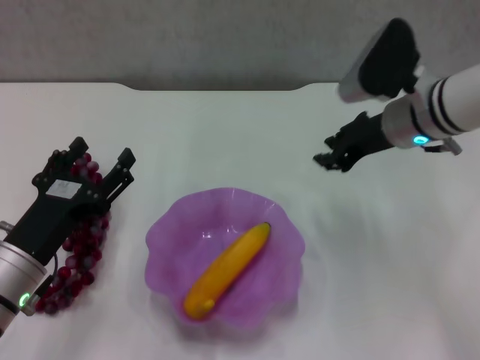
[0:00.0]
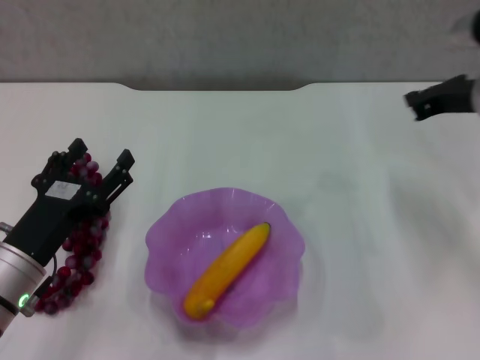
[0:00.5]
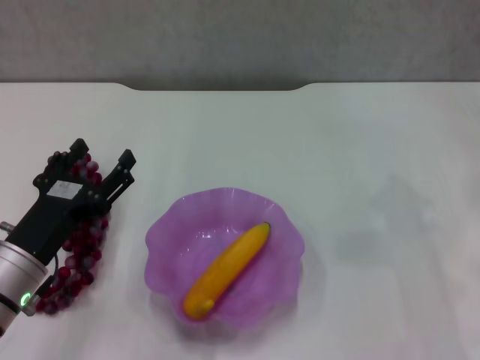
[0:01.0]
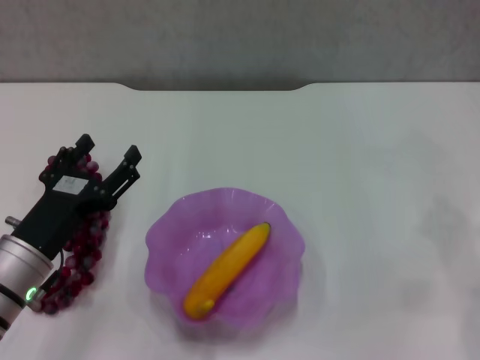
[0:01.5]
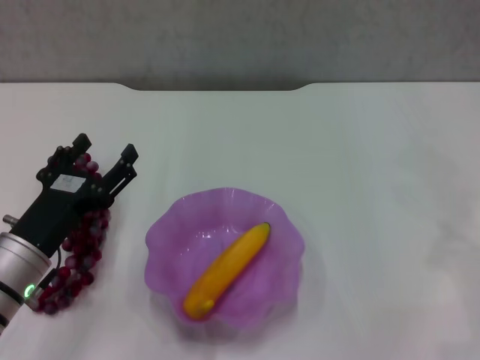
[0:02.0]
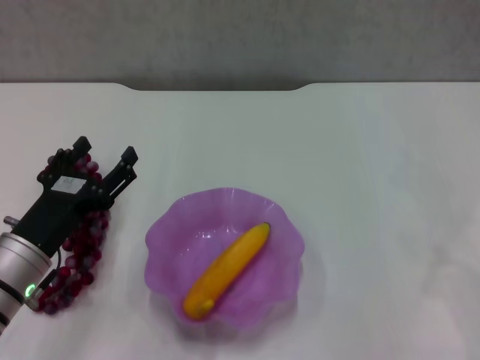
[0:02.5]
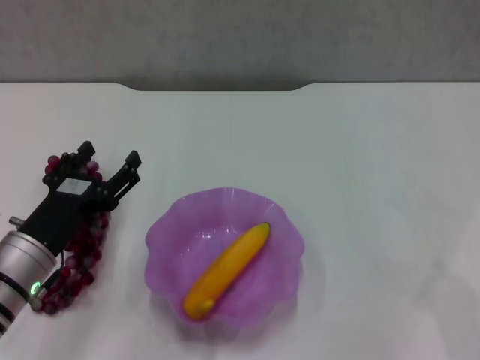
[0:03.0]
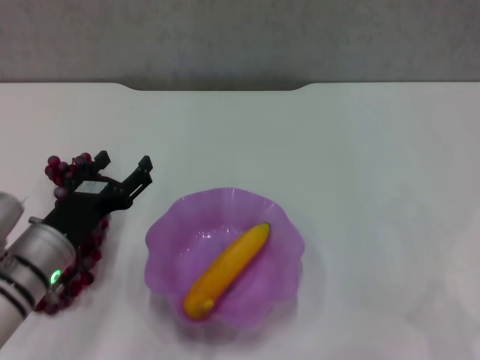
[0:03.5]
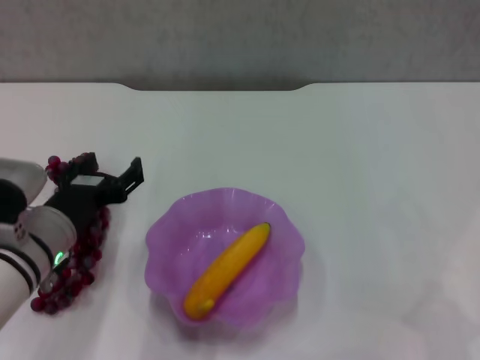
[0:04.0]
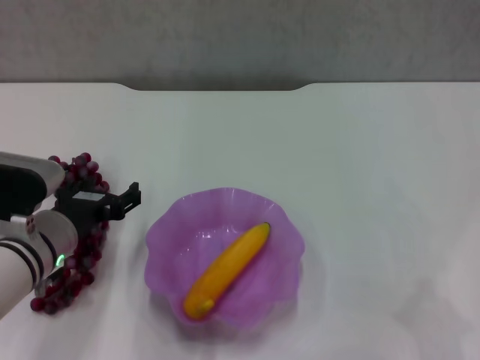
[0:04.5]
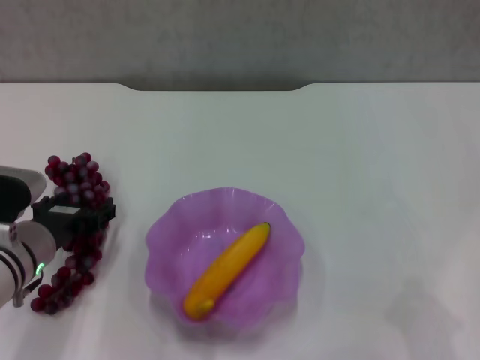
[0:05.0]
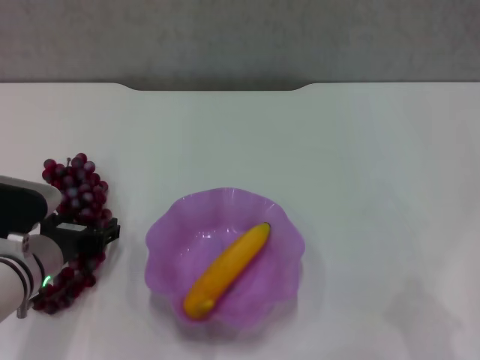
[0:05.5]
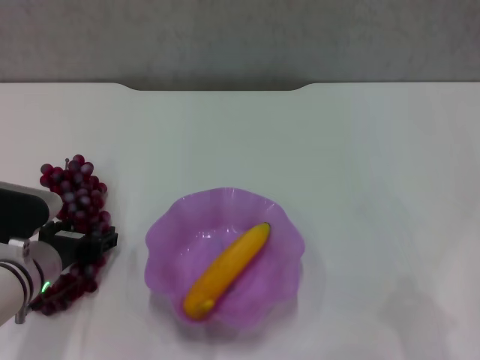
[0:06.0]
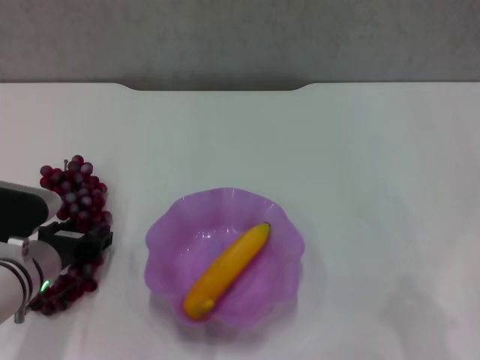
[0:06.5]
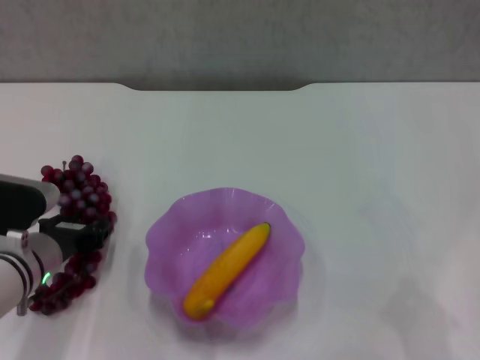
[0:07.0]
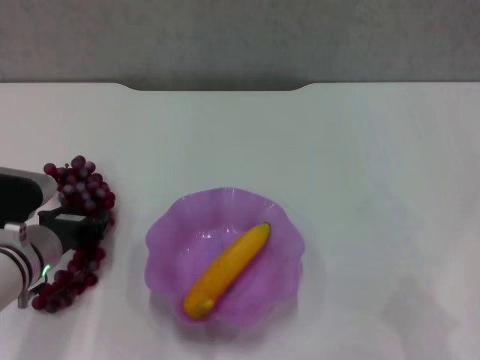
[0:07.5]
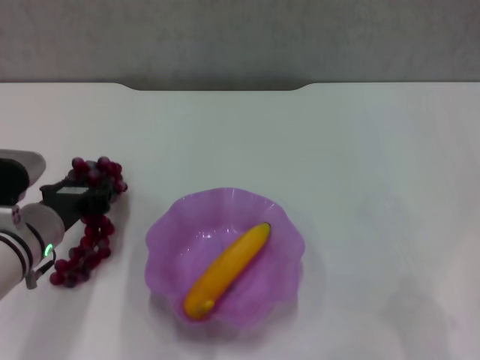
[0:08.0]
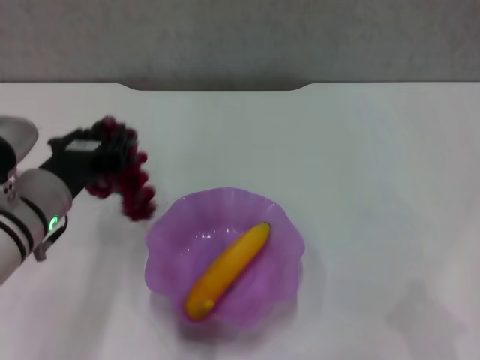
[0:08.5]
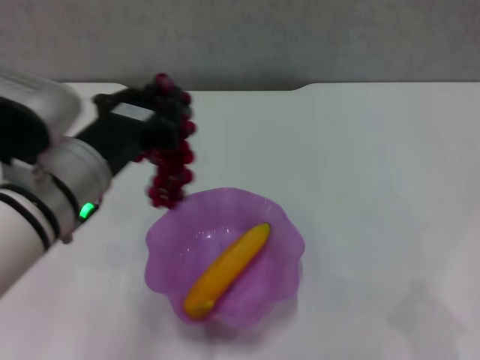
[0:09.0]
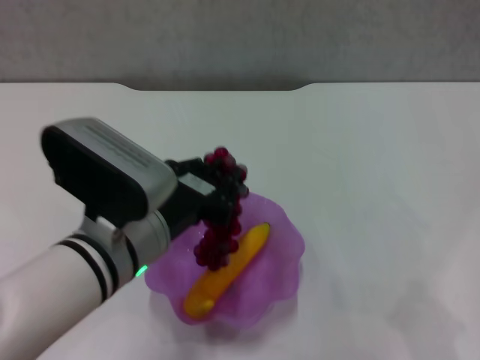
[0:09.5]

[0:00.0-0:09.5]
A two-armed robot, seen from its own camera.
Step, 0:00.0 to 0:06.5: Grasp the grape with left gripper.
0:00.0 to 0:02.0: The right gripper is displaced to the right and backward by about 30 cm, and closes.
0:05.5 to 0:07.5: The left gripper closes.
0:07.5 to 0:09.5: The left gripper shifts about 15 cm to the right, upward and backward.

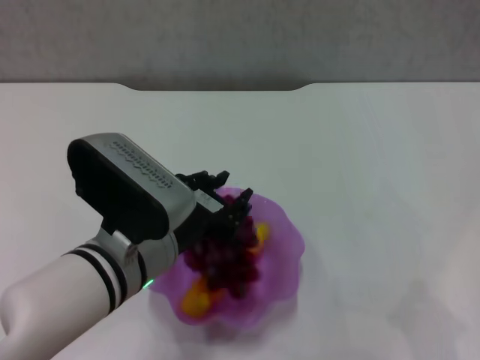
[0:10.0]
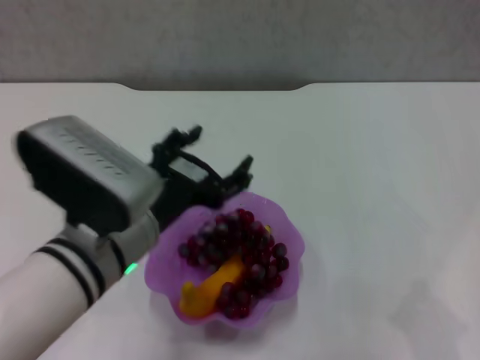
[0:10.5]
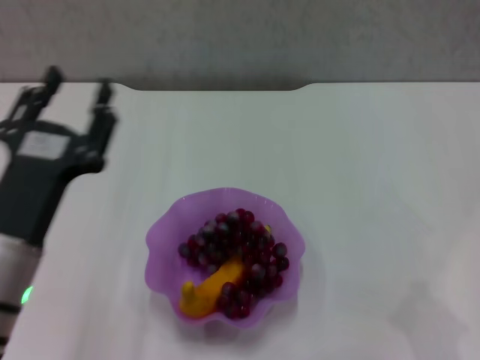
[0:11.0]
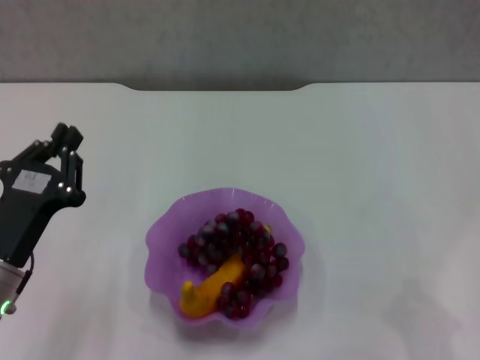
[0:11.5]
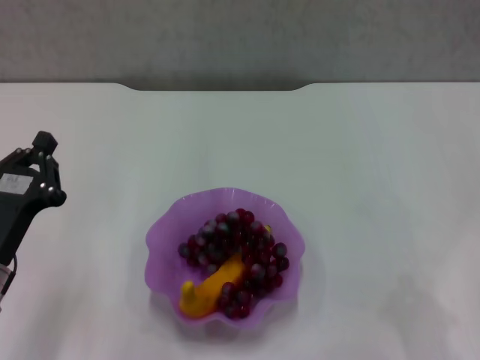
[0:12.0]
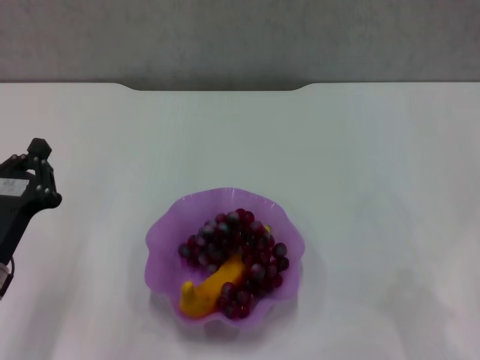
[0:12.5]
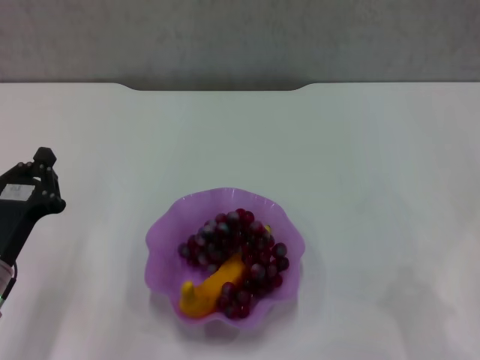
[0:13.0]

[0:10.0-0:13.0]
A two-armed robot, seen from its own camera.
0:10.0 to 0:11.5: The left gripper travels to the left and downward by about 15 cm, and opens, then closes once more.
0:11.5 to 0:13.0: The left gripper closes its fingers.

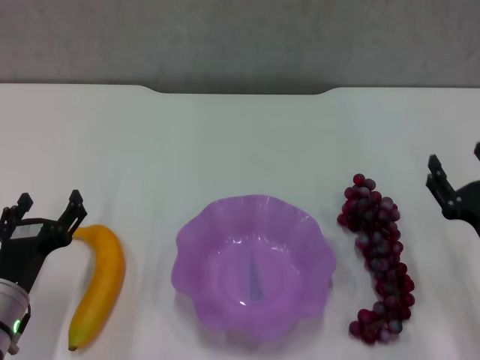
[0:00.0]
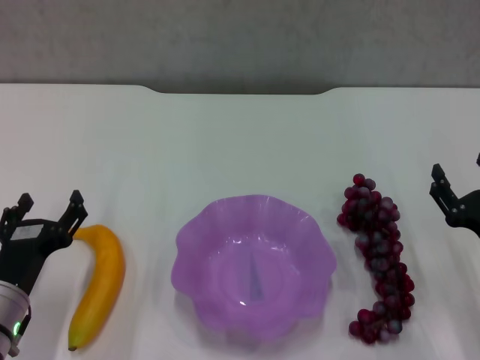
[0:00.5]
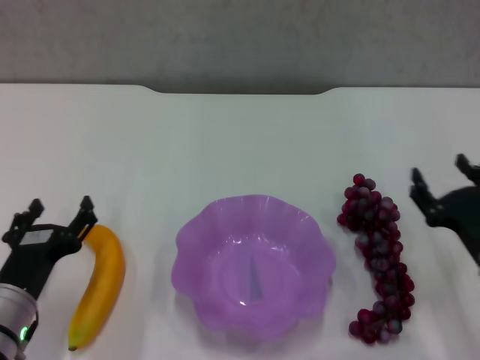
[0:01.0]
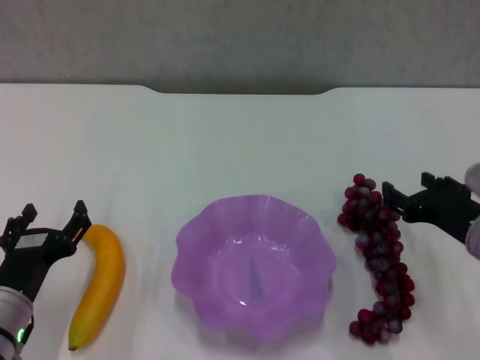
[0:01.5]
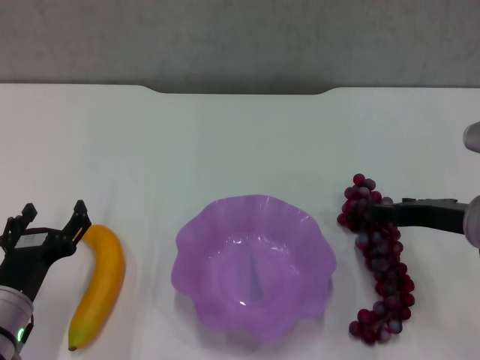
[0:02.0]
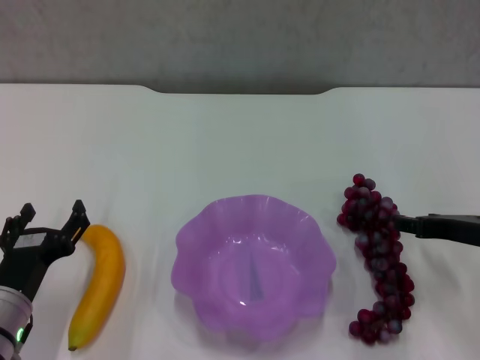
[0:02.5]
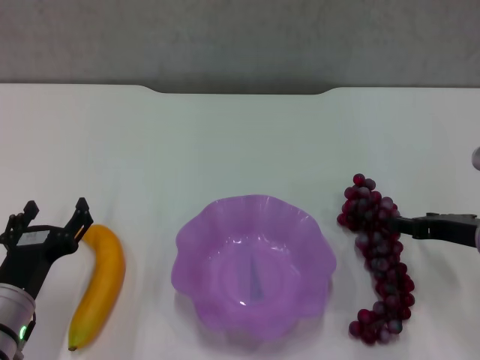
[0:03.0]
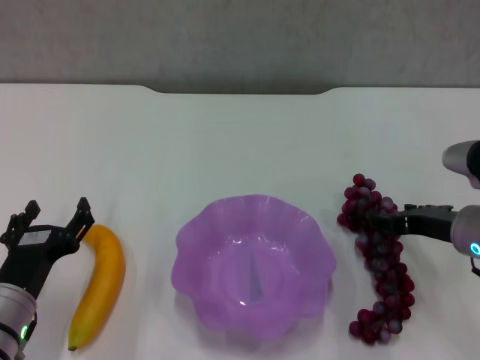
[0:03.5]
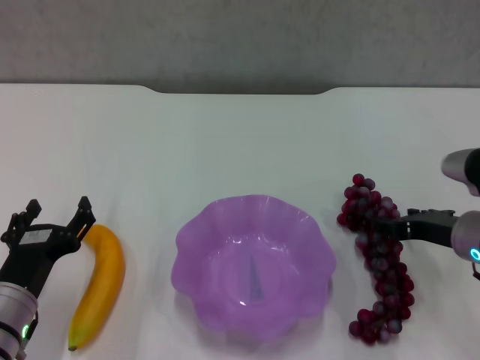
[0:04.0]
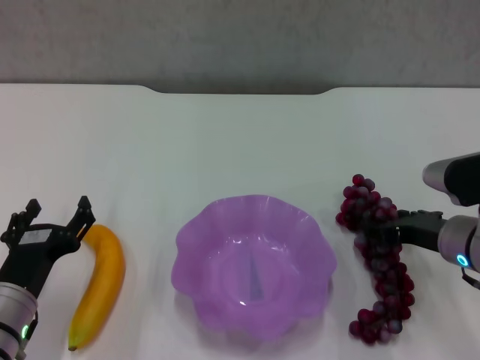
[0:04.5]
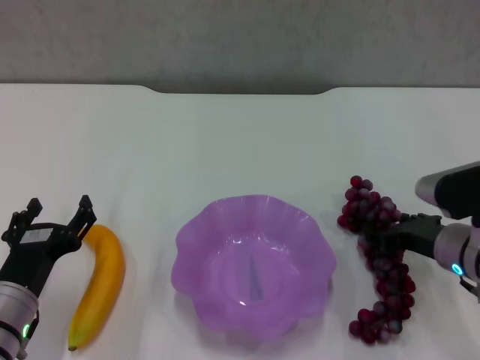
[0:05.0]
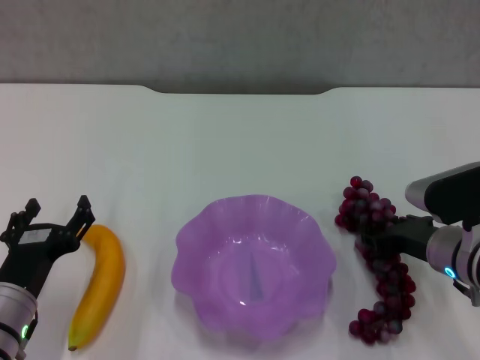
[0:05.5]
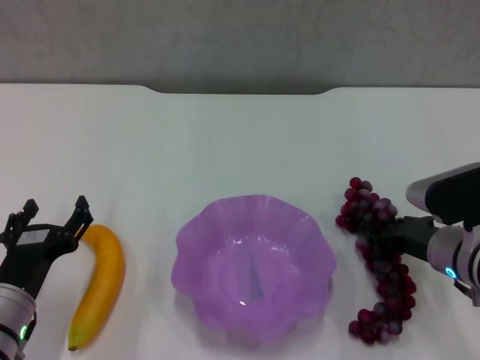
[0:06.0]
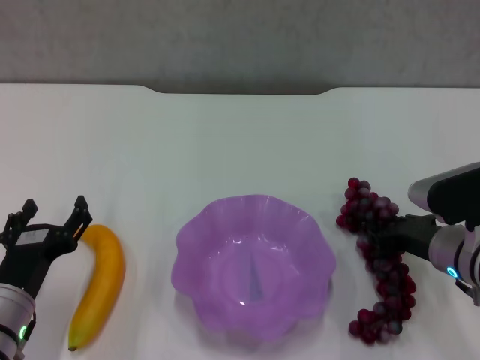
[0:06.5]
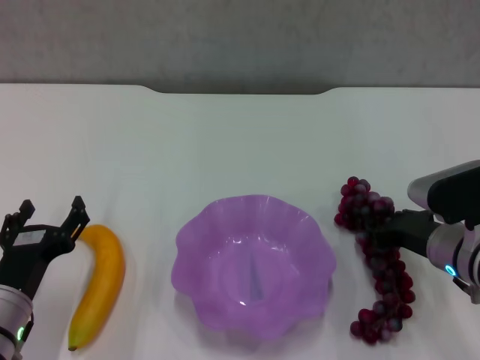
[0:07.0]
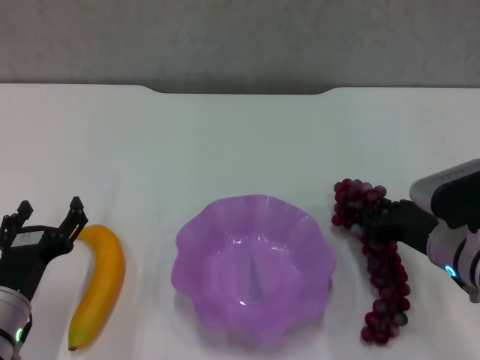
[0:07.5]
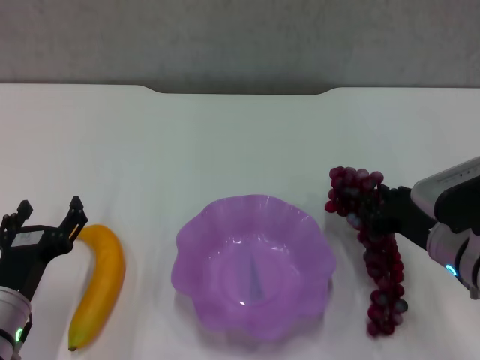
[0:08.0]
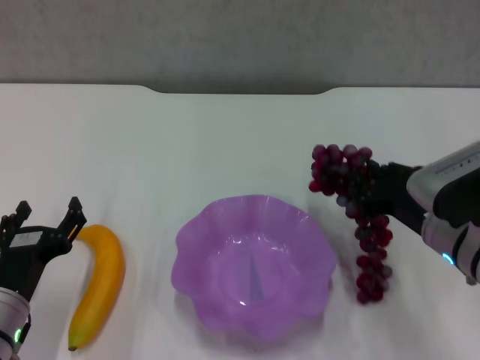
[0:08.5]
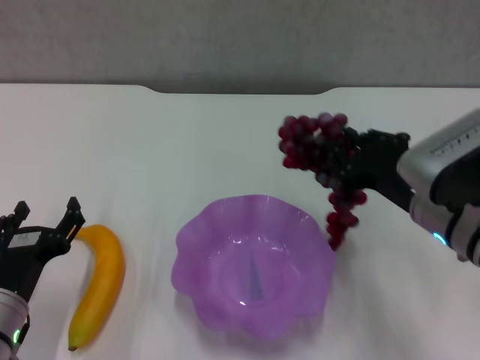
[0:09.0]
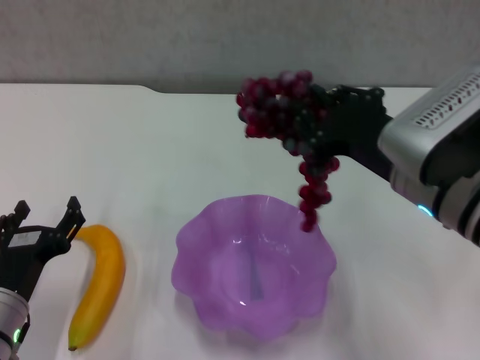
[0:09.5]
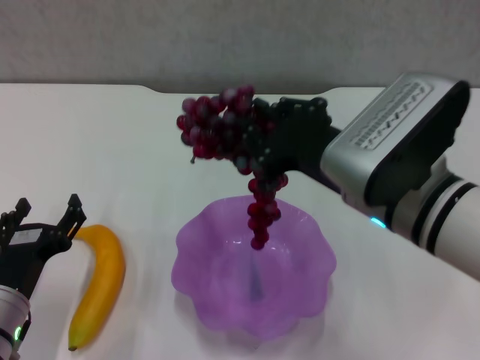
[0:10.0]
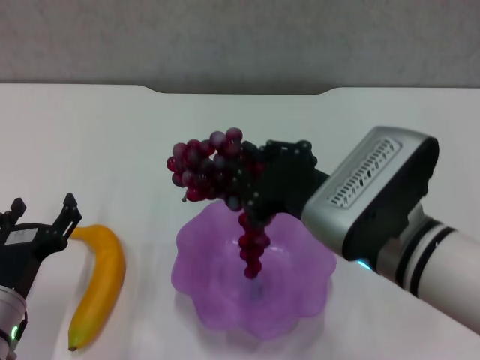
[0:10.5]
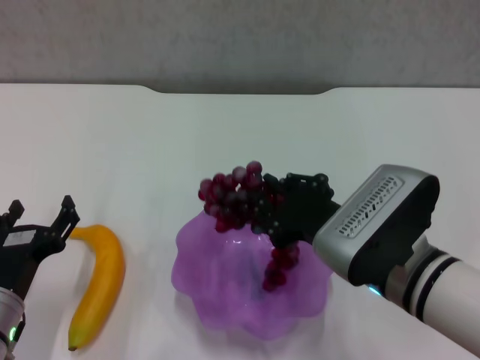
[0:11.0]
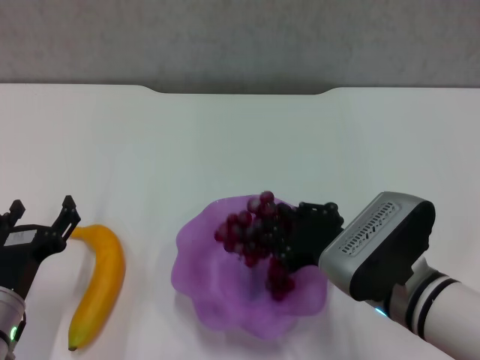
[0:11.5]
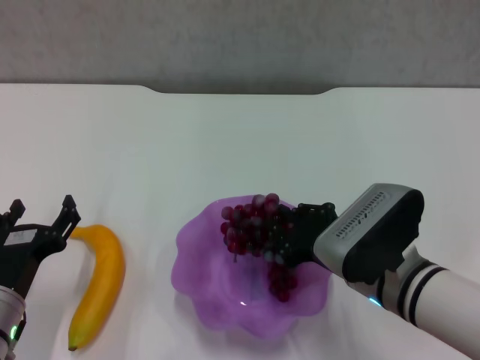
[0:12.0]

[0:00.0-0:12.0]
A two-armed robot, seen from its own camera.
Step, 0:00.0 to 0:06.0: Grasp the grape with right gripper.
0:00.0 to 0:02.0: The right gripper shifts roughly 10 cm upward and forward.
0:02.0 to 0:04.0: The grippers move only a little.
0:04.0 to 0:08.0: The grippers stay close to where they were, moving slightly.
0:08.0 to 0:10.0: The right gripper travels upward and to the left by about 15 cm.
0:10.0 to 0:12.0: The right gripper goes roughly 10 cm downward.

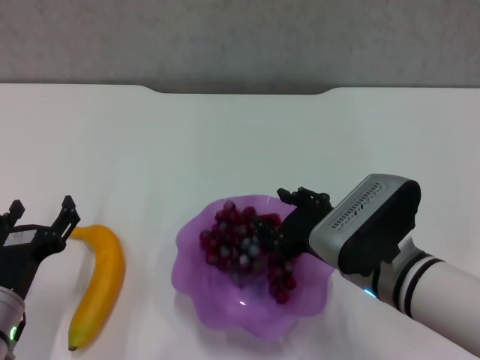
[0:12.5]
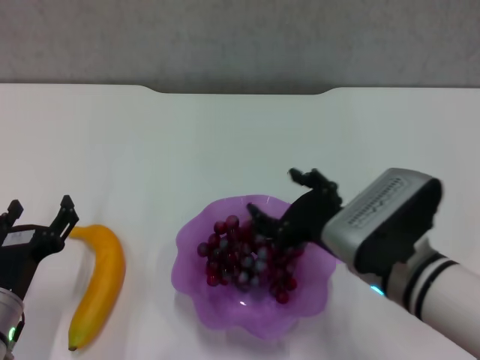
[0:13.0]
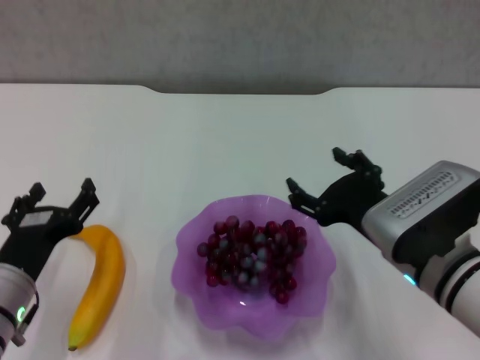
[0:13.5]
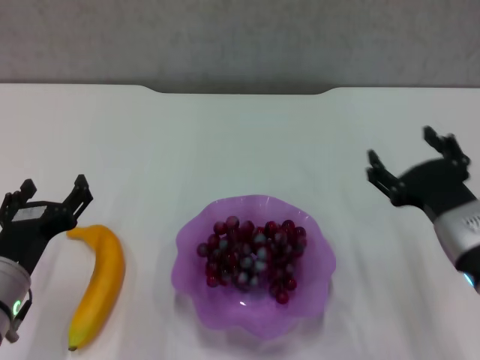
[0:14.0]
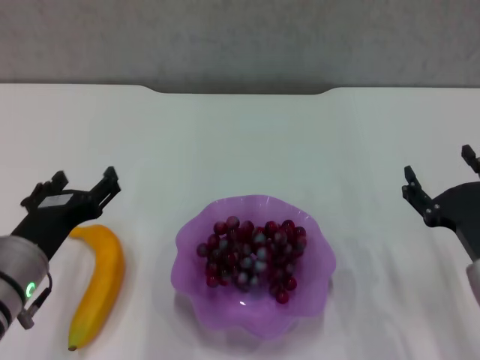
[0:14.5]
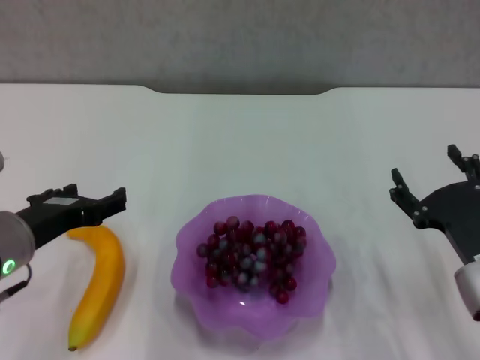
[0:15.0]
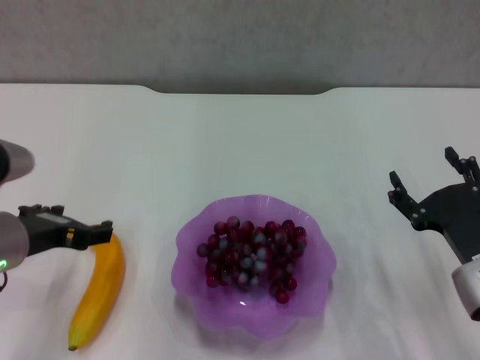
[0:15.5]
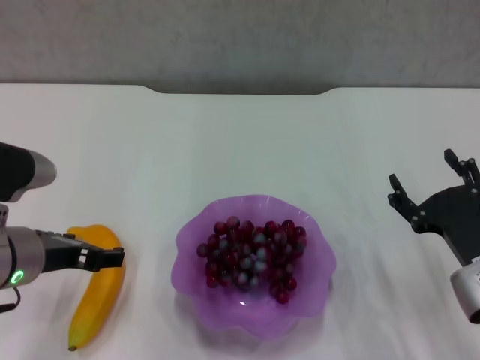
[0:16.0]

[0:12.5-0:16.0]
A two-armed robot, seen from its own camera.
0:12.5 to 0:14.5: The left gripper shifts some 5 cm upward; the right gripper moves to the right, some 10 cm, and opens up.
0:14.5 to 0:16.0: The left gripper moves some 5 cm.
